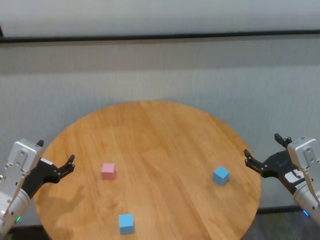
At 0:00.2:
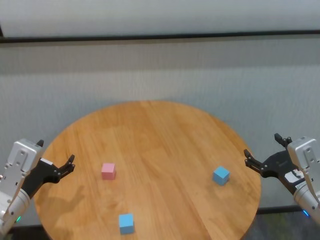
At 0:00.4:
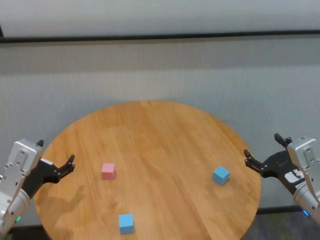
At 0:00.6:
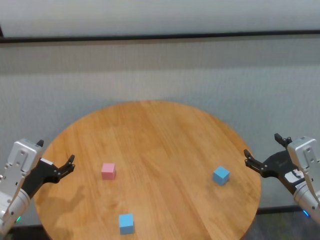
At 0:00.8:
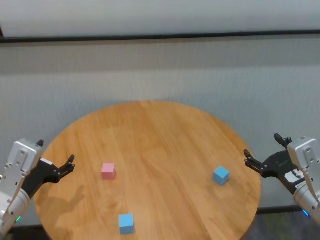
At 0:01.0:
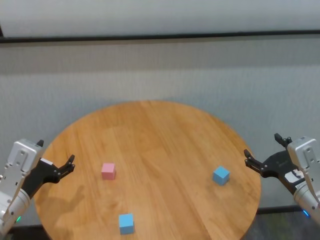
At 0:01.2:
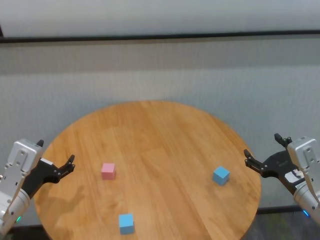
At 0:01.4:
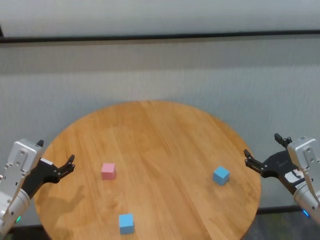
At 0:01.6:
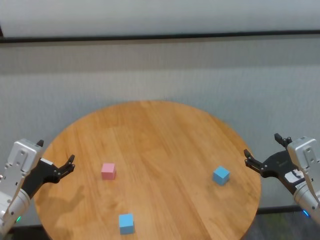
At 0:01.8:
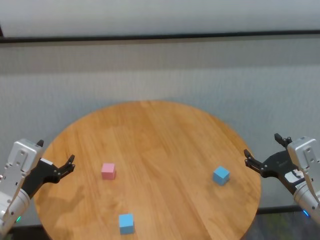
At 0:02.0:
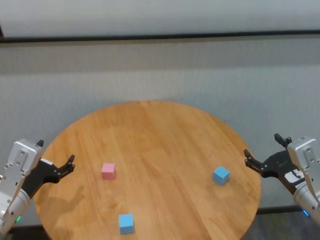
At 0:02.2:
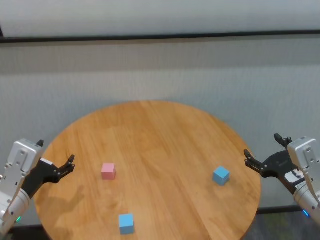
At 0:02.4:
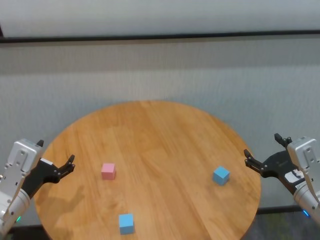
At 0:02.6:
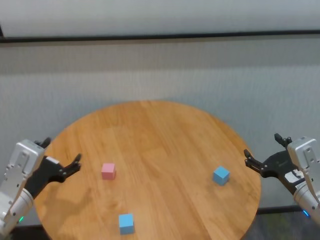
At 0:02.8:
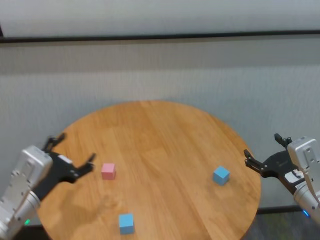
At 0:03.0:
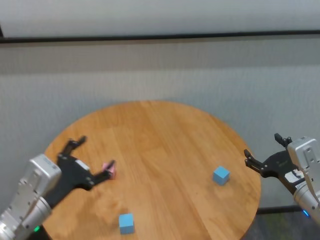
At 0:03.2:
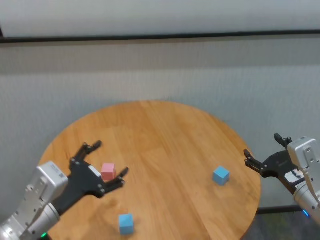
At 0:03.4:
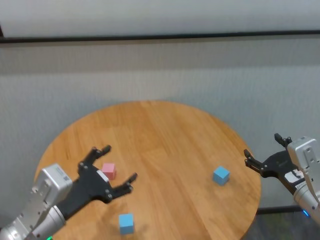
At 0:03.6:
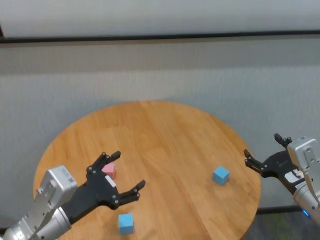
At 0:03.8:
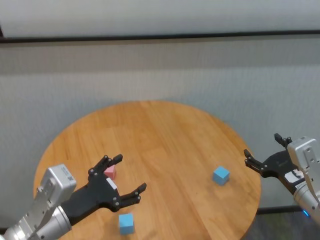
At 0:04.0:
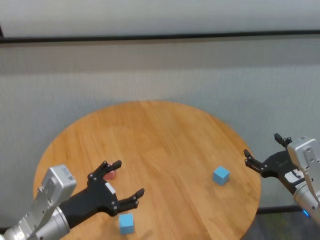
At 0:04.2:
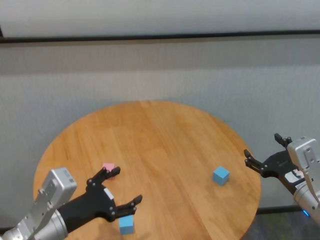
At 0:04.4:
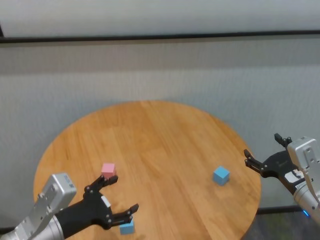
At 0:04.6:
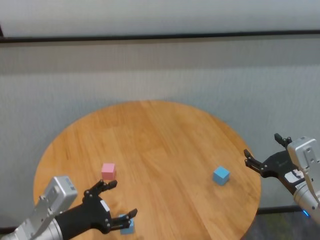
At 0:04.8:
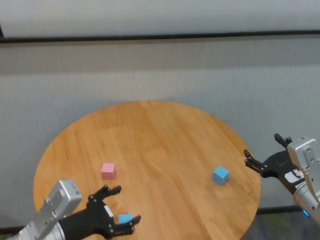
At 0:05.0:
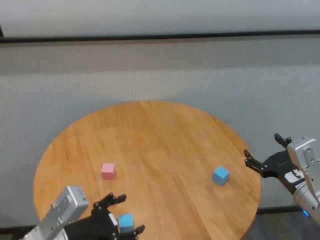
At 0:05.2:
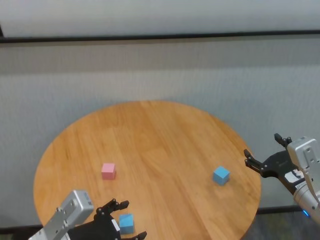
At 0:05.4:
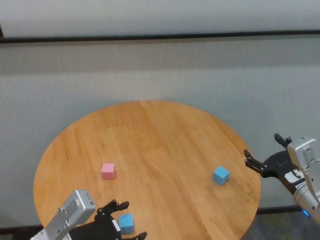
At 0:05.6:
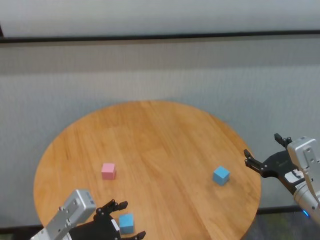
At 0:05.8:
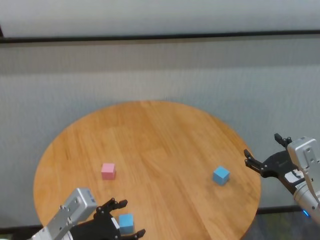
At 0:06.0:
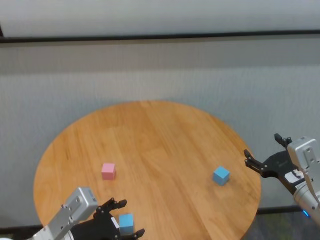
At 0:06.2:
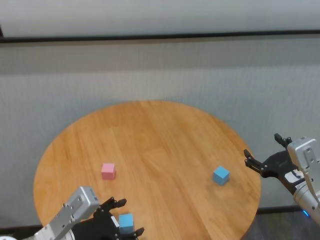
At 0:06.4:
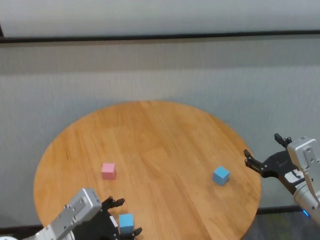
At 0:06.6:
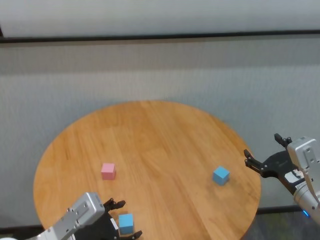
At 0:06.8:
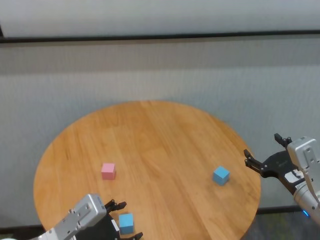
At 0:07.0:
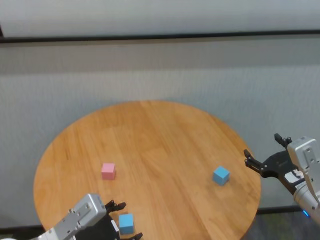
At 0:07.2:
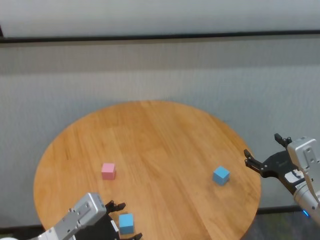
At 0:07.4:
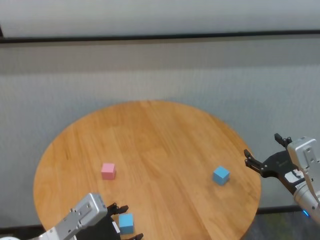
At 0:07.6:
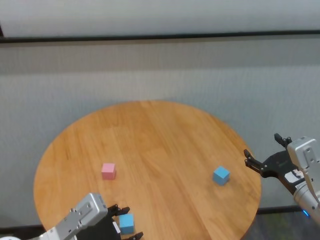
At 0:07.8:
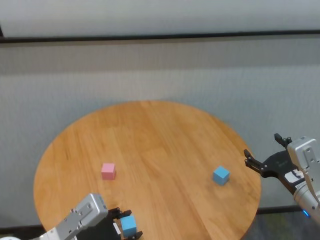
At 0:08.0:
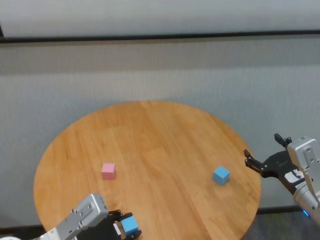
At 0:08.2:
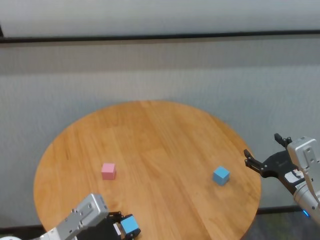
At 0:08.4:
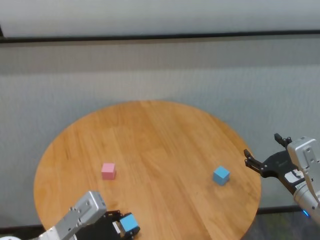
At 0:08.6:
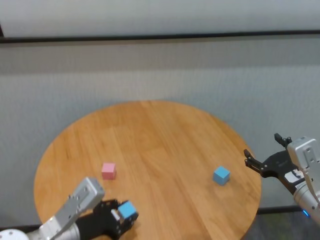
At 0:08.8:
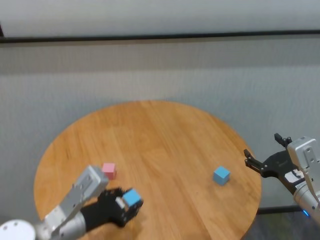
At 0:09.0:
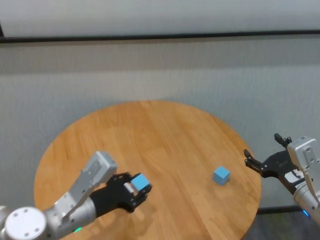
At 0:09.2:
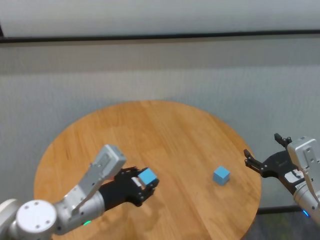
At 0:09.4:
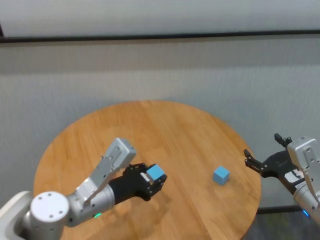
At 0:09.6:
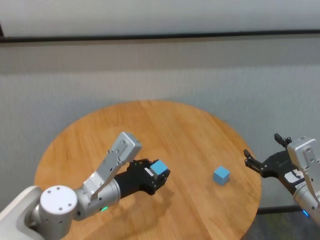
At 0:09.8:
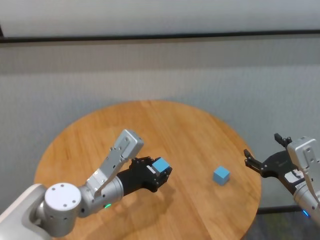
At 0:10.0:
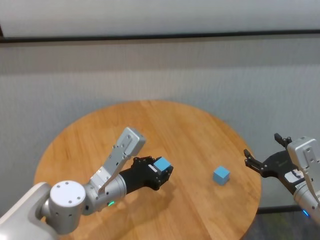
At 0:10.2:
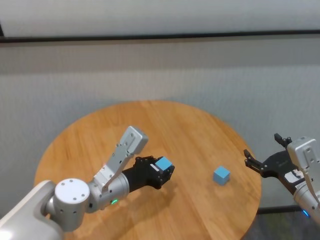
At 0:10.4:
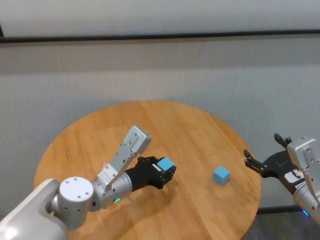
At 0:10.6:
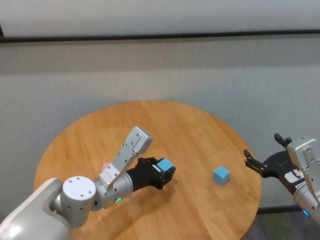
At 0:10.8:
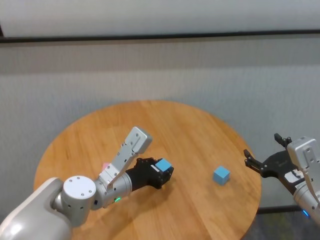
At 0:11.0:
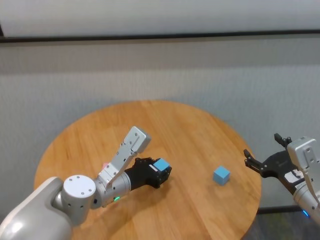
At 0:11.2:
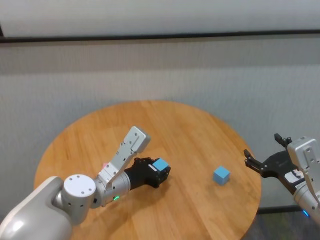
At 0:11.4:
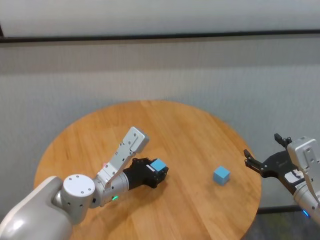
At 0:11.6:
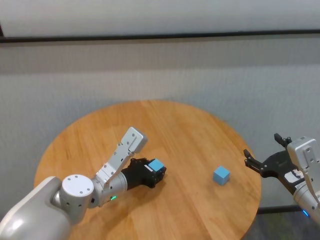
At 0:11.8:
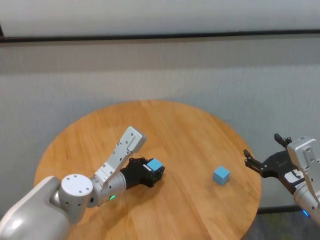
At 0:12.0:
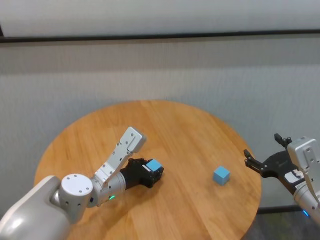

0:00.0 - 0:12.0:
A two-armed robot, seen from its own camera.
Task of the whole recording: stack building blocks on the table.
Step, 0:00.0 - 0:08.0: Grasp the blue building block with left gripper.

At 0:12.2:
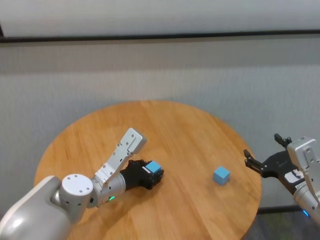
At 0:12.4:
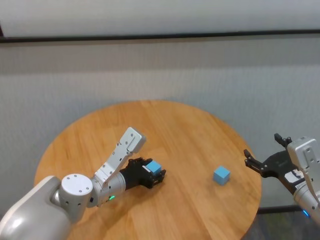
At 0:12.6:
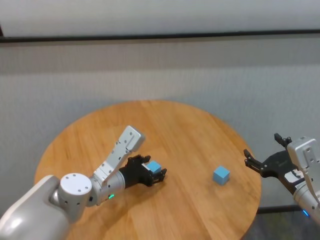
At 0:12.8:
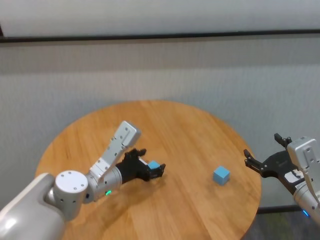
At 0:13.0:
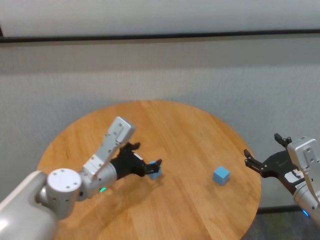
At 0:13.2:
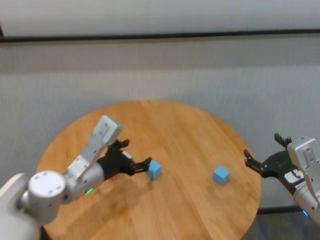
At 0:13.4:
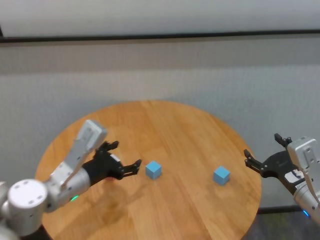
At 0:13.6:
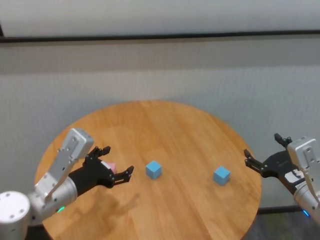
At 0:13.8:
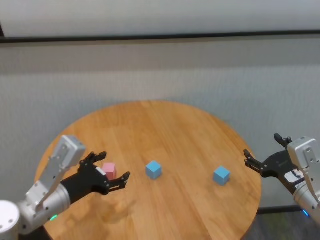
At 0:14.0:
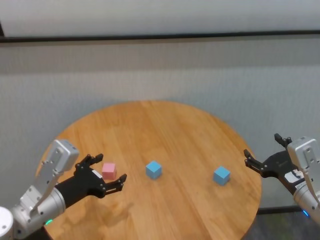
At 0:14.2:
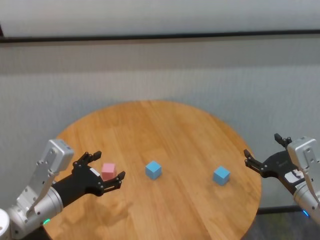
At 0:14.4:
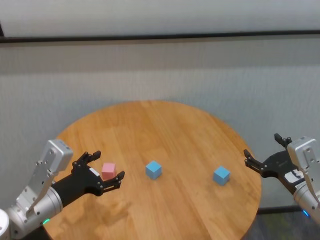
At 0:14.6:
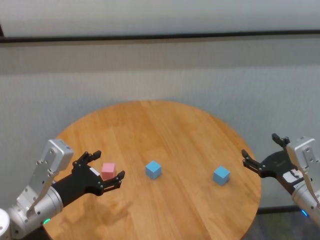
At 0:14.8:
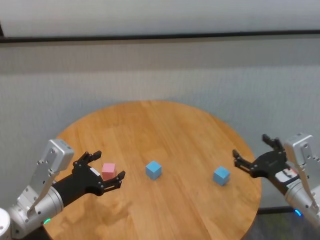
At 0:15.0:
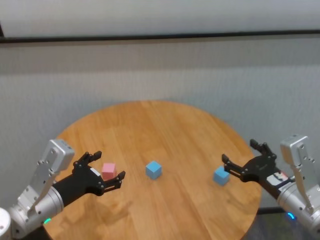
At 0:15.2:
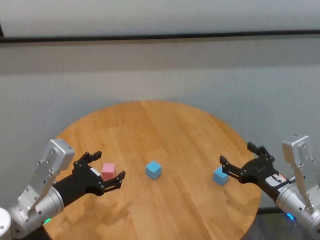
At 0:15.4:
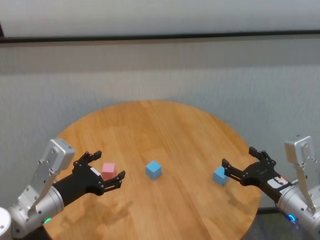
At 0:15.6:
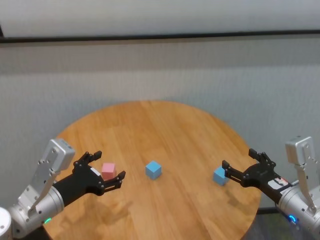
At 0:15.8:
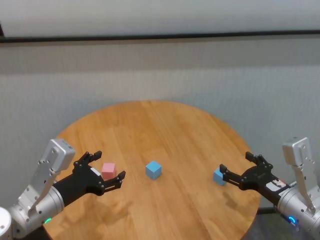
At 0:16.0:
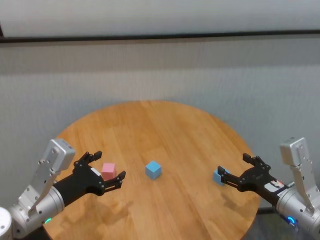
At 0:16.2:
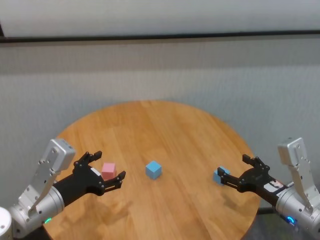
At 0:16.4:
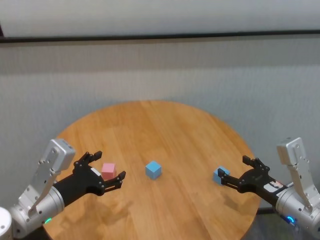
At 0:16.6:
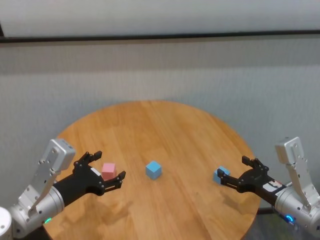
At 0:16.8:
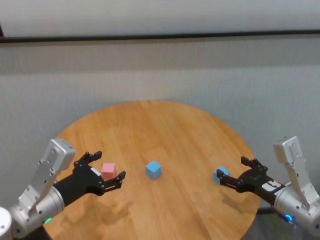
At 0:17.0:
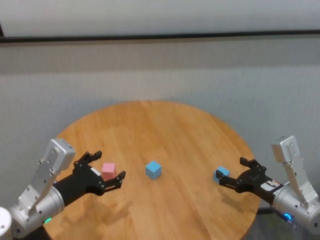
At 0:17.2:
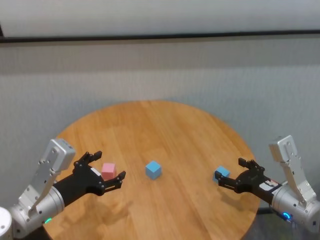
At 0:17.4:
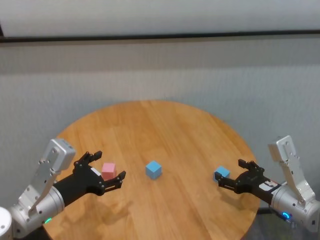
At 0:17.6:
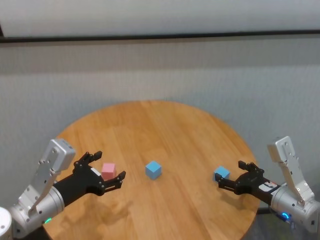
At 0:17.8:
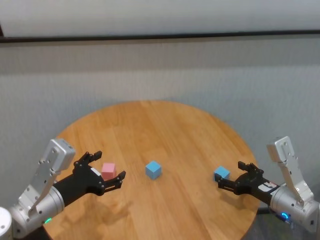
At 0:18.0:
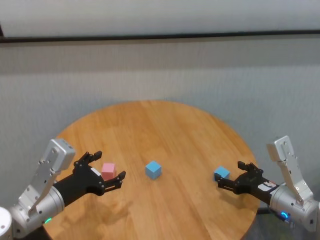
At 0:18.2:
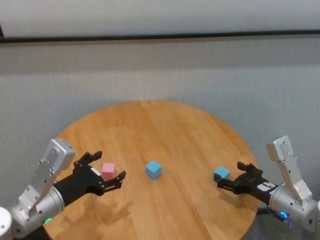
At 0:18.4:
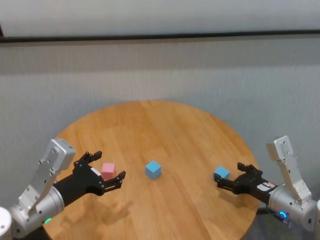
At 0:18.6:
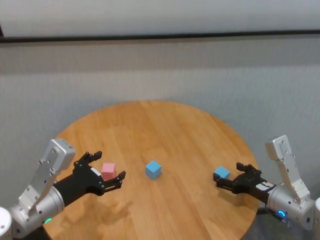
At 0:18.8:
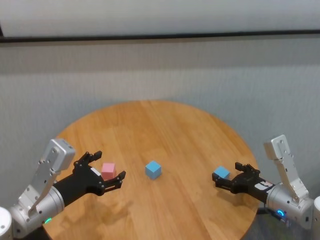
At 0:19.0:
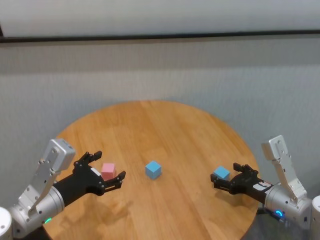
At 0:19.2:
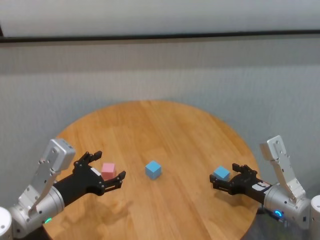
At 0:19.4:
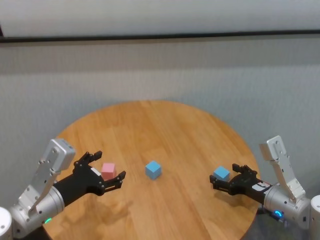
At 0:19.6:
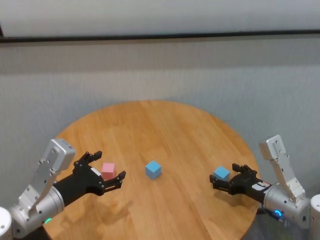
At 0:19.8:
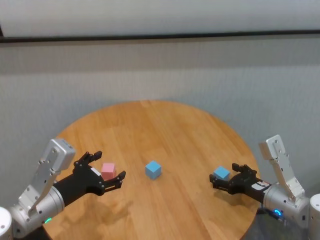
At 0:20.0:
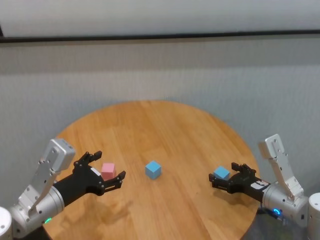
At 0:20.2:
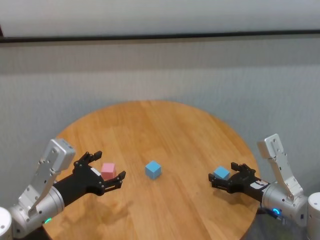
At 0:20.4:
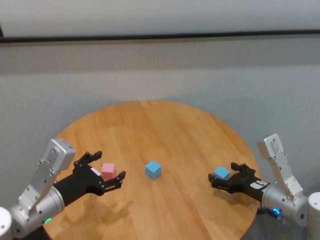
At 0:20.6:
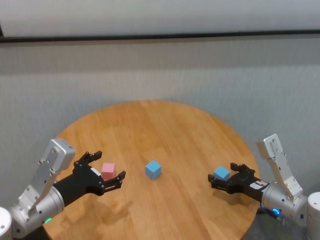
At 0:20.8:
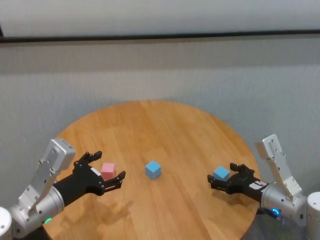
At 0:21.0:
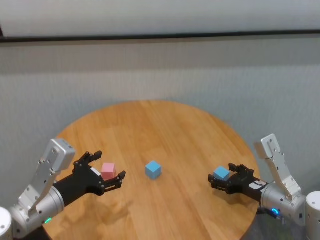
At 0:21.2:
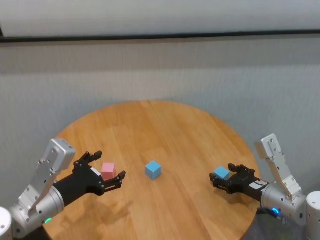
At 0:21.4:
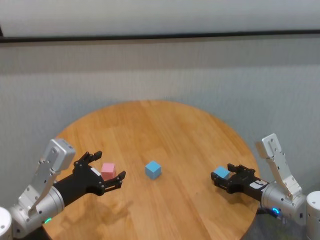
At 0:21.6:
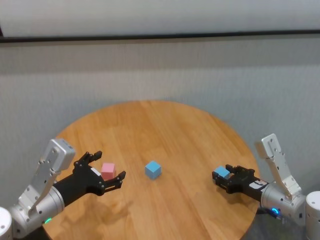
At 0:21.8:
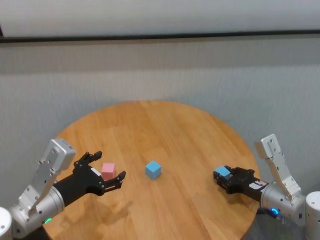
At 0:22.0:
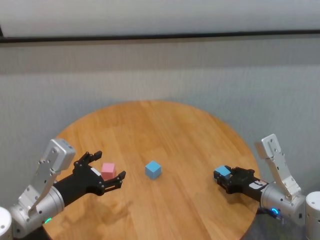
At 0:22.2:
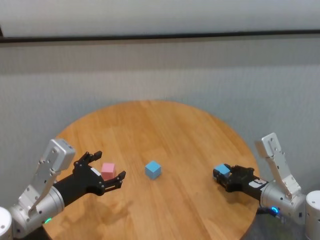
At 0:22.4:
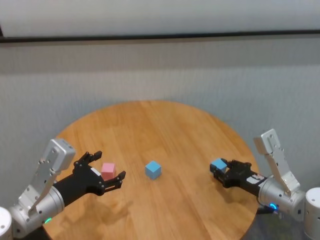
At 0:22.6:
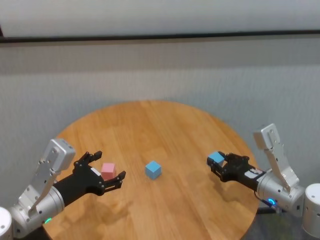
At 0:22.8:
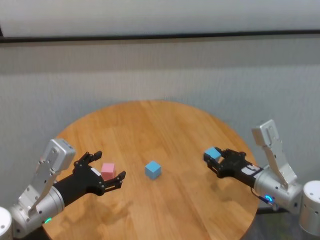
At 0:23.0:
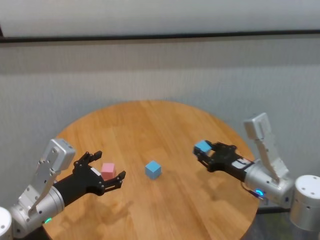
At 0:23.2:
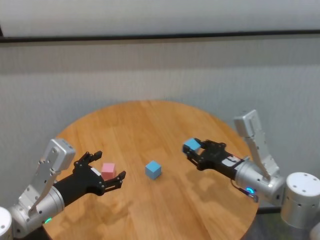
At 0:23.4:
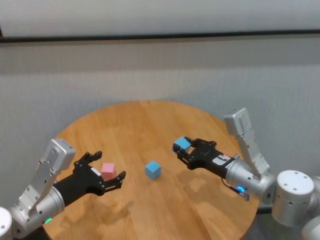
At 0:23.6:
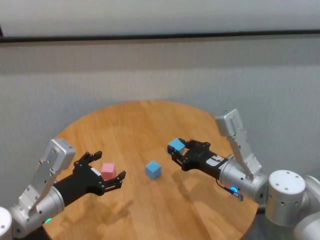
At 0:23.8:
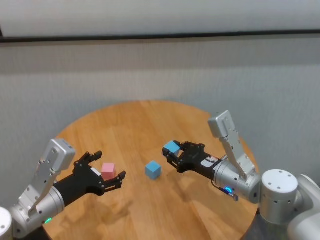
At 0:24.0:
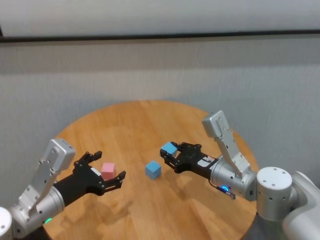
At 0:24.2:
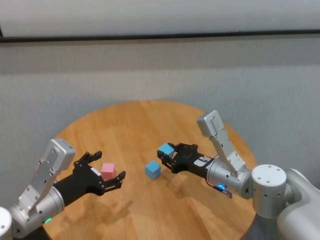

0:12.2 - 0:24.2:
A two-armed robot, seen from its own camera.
Task of the whole recording: stack building blocks on the table.
Step, 0:12.8 - 0:21.8: Grasp the blue building block with right gripper.
